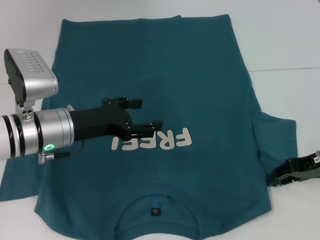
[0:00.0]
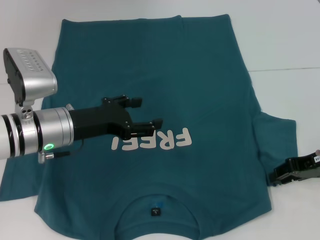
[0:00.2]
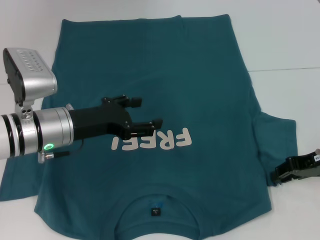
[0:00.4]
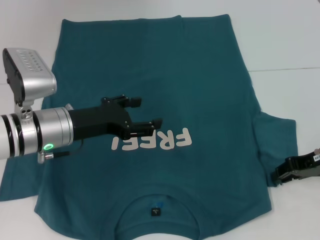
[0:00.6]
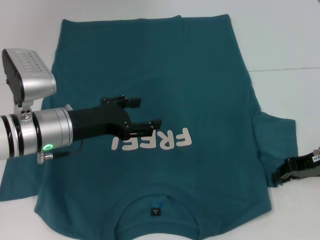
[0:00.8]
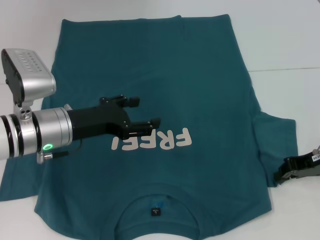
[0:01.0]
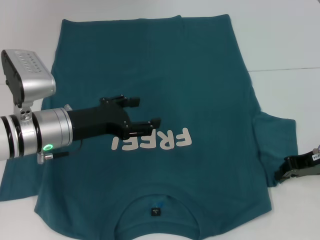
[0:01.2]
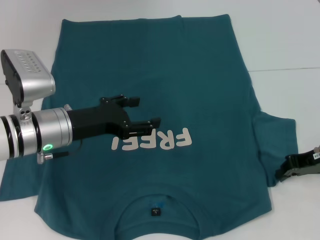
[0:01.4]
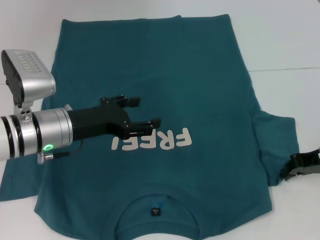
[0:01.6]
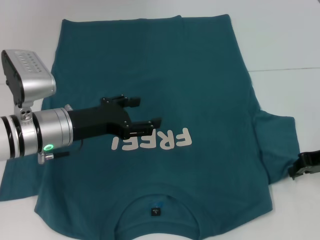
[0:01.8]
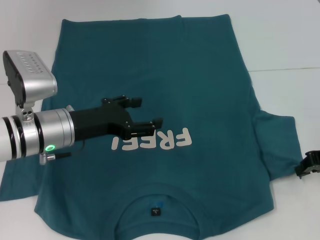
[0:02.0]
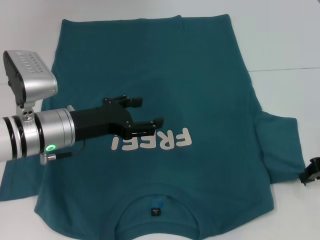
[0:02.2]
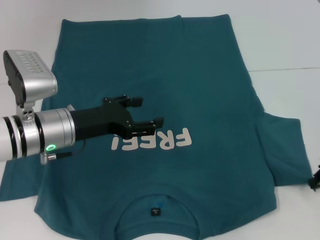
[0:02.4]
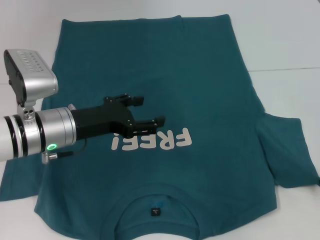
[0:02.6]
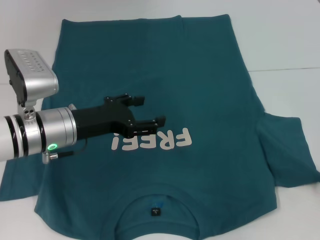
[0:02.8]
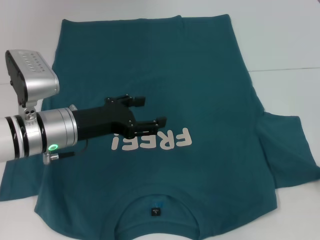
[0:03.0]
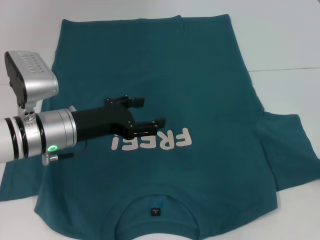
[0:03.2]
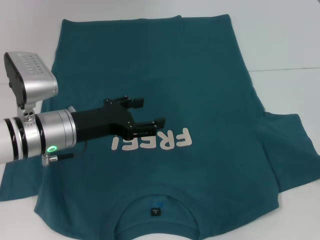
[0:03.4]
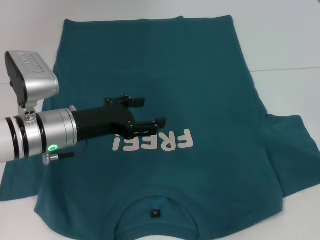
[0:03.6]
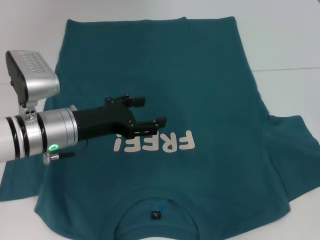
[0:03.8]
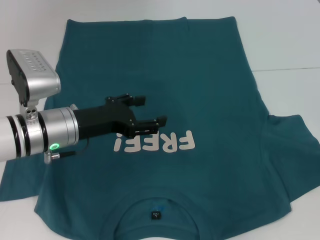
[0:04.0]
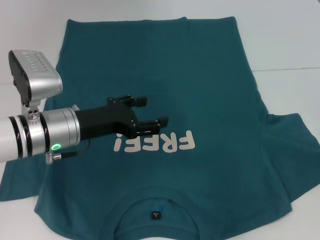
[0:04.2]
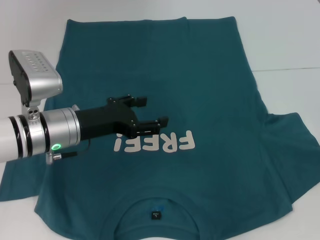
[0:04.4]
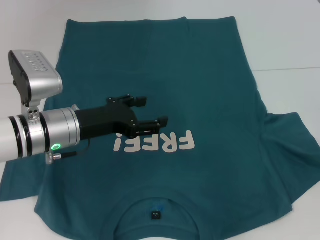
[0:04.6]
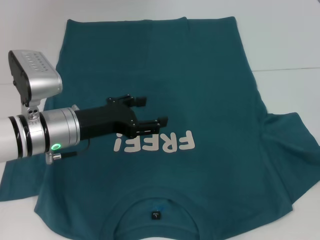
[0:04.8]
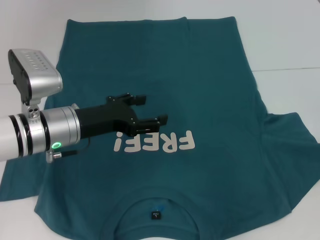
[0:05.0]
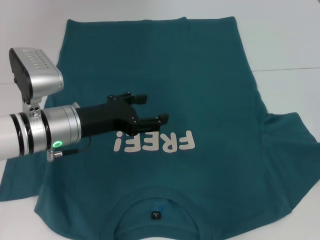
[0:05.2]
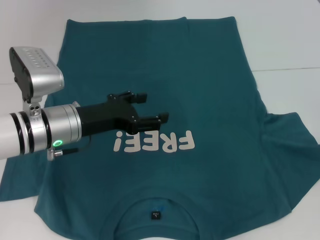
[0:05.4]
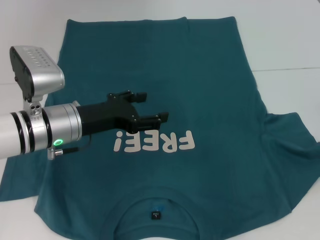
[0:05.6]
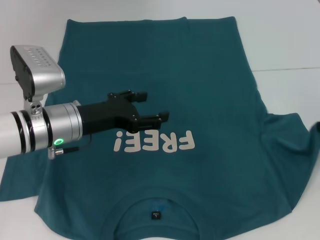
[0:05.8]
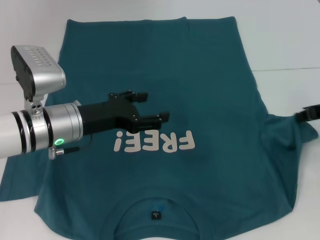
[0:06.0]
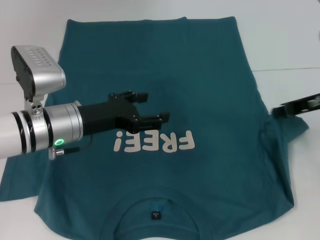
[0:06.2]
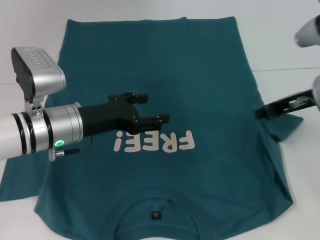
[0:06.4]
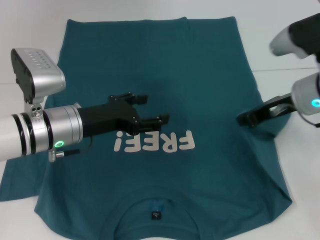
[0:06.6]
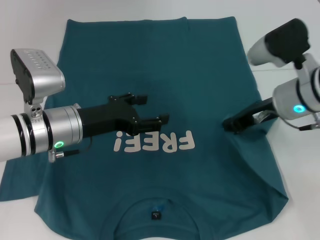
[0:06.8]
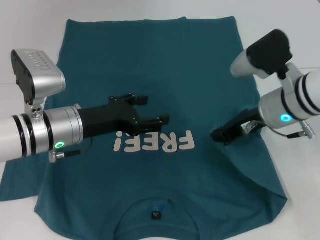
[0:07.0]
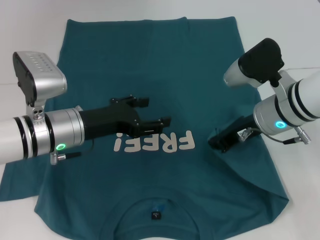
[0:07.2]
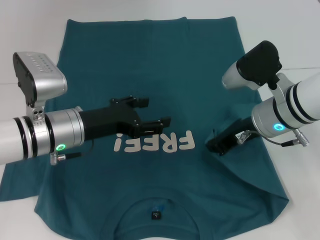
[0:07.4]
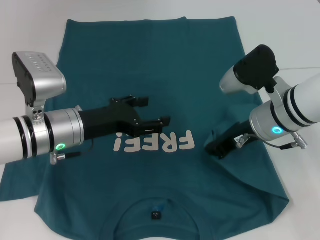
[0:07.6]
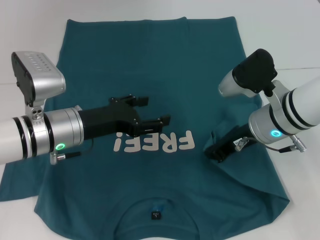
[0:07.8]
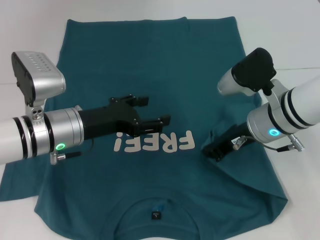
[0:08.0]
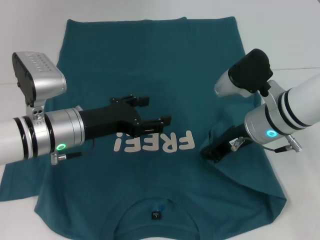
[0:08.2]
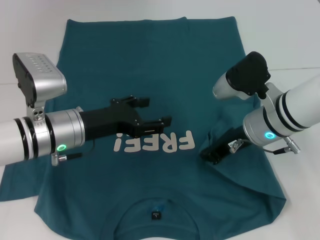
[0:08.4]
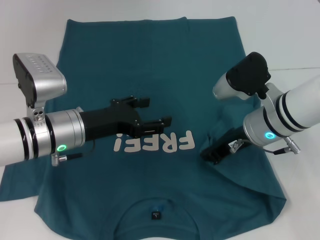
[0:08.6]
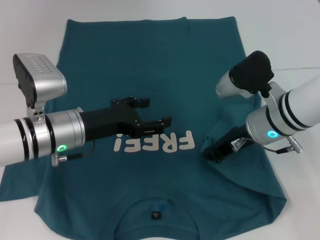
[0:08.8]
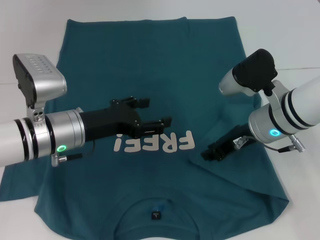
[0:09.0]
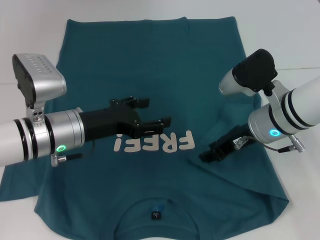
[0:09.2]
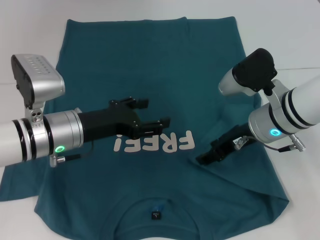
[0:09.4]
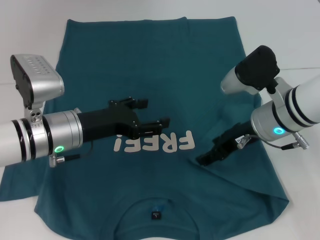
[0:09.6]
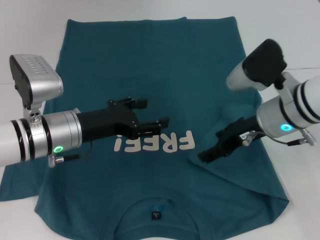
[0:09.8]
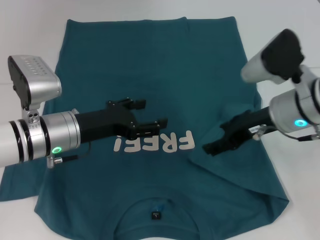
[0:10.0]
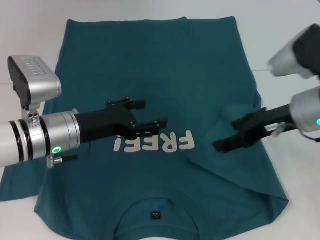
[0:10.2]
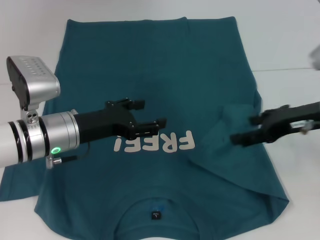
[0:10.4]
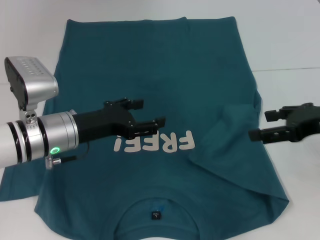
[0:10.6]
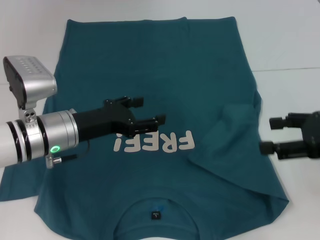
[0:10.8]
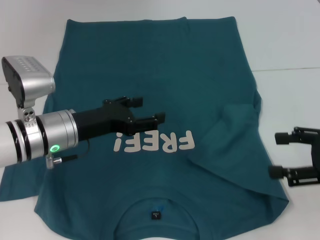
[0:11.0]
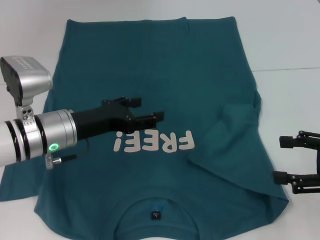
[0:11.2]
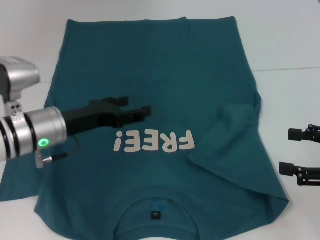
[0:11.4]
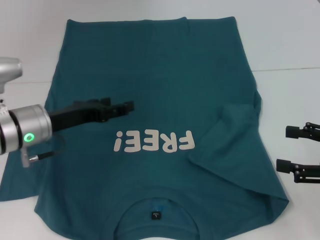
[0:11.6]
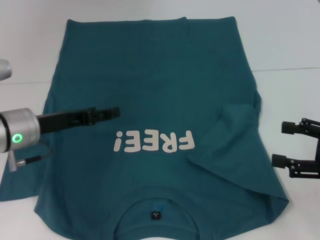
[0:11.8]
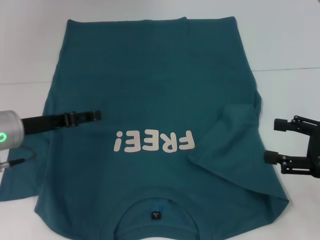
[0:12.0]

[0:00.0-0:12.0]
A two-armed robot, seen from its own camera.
Step, 0:00.0 to 0:09.2: Fold the bottom right sleeve to the right.
0:00.0 to 0:01.6: The right gripper closes its fingers.
0:01.6 to 0:03.0: The right gripper shifts by roughly 5 cm.
0:03.0 to 0:04.4: There are only small adjustments of the grippers.
0:04.4 to 0:06.0: The right gripper heads to the left, covering some 5 cm.
0:06.0 to 0:07.6: The right gripper is displaced to the left by some 15 cm.
0:07.6 to 0:09.0: Both grippers stay about where they are.
0:09.0 to 0:10.4: The right gripper travels to the right and upward by some 10 cm, and opens.
0:10.4 to 0:12.0: The right gripper heads backward and to the right, covering roughly 10 cm. Meanwhile the left gripper shifts about 5 cm to the left.

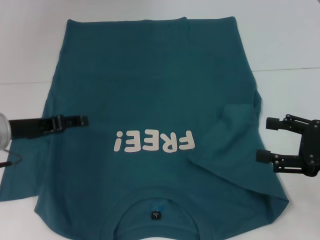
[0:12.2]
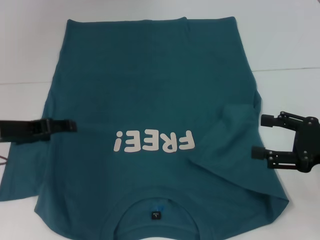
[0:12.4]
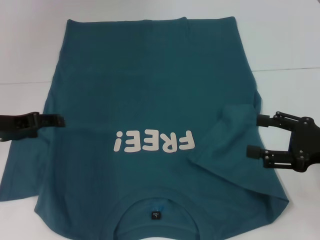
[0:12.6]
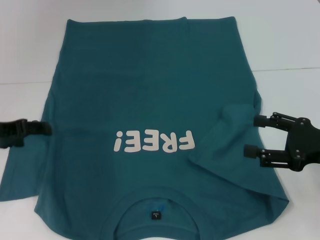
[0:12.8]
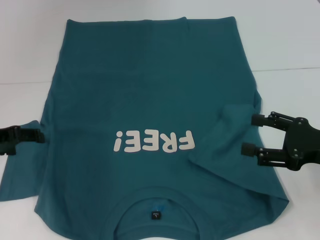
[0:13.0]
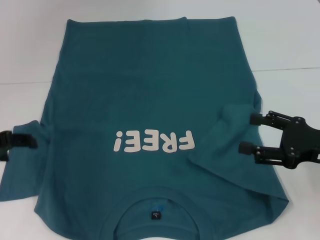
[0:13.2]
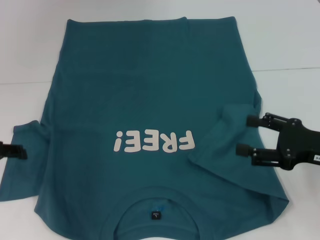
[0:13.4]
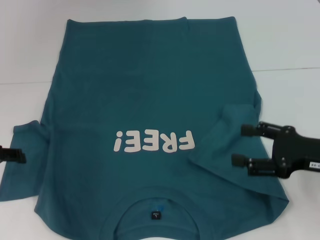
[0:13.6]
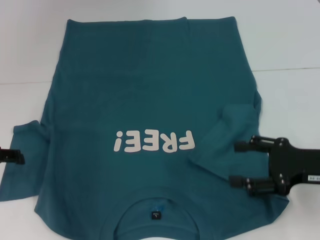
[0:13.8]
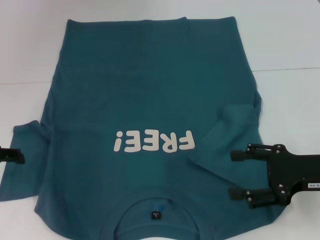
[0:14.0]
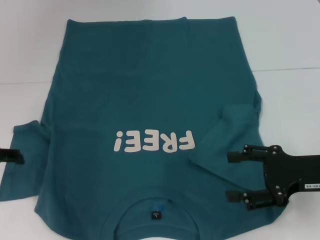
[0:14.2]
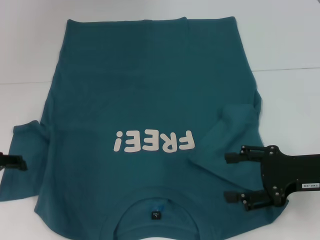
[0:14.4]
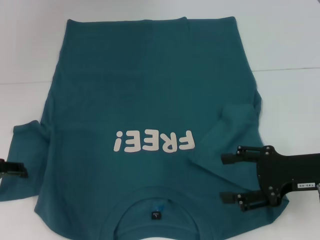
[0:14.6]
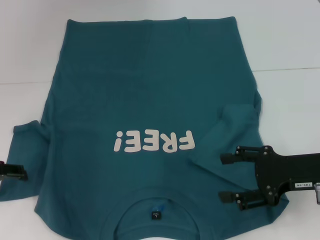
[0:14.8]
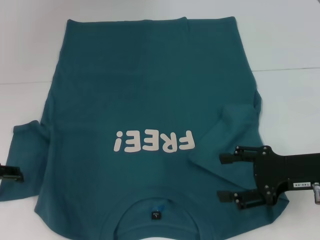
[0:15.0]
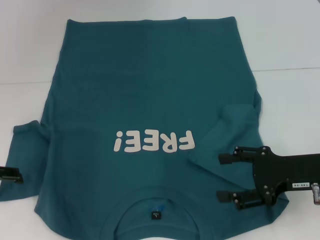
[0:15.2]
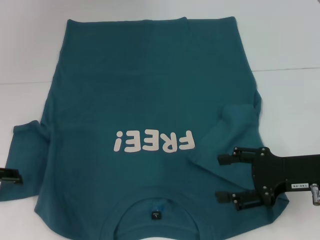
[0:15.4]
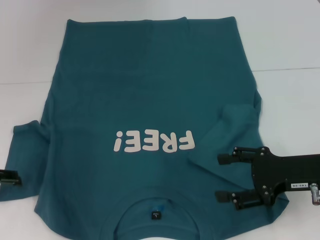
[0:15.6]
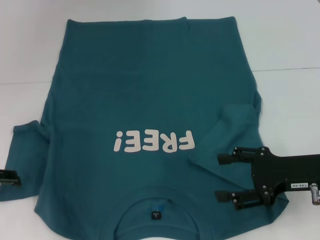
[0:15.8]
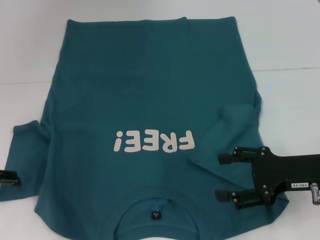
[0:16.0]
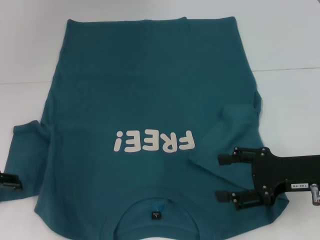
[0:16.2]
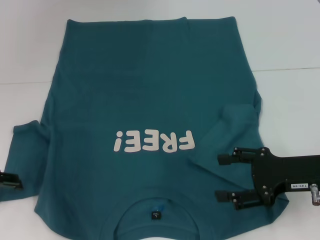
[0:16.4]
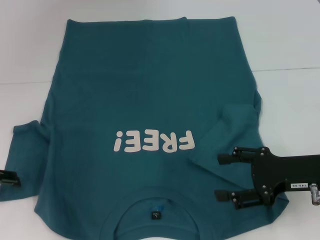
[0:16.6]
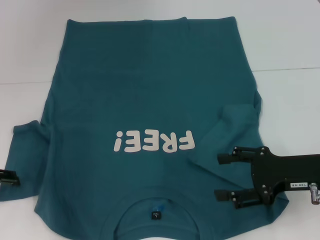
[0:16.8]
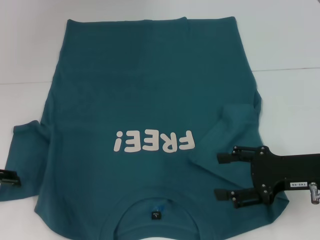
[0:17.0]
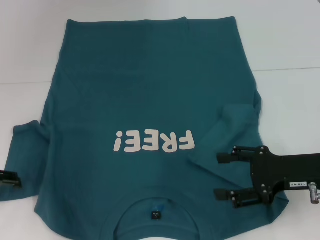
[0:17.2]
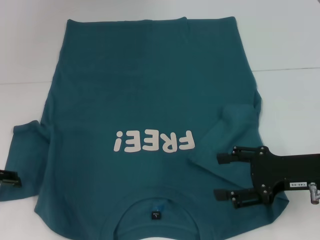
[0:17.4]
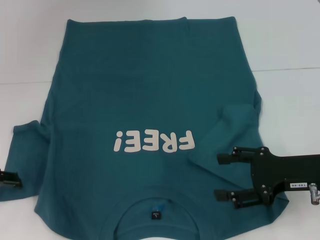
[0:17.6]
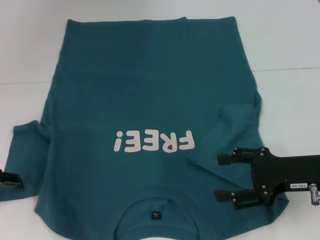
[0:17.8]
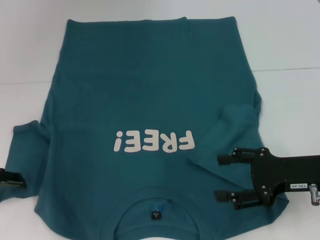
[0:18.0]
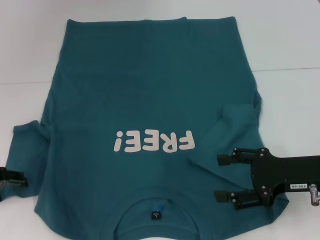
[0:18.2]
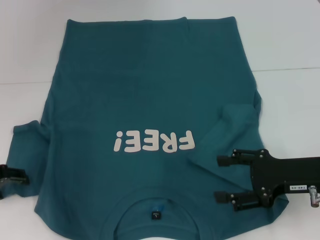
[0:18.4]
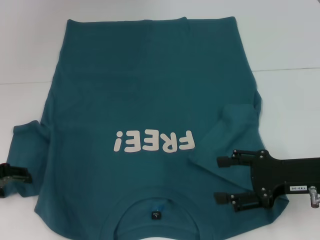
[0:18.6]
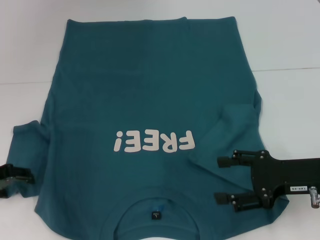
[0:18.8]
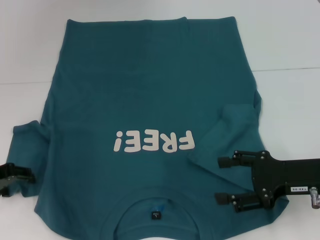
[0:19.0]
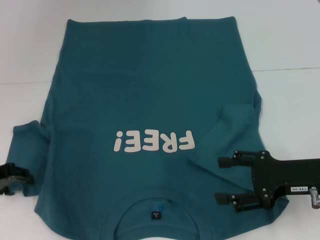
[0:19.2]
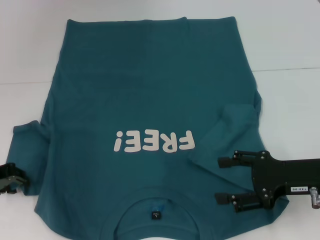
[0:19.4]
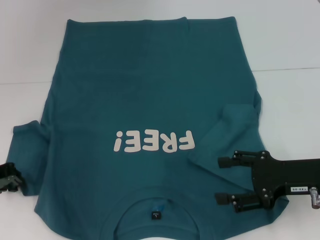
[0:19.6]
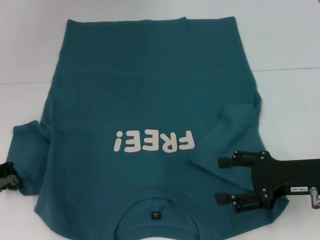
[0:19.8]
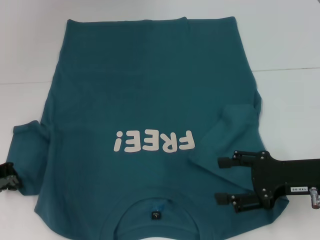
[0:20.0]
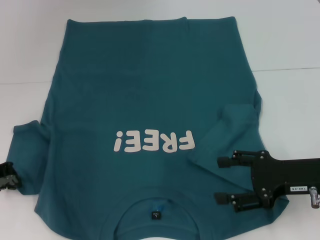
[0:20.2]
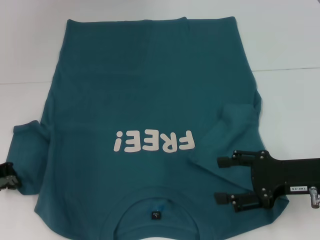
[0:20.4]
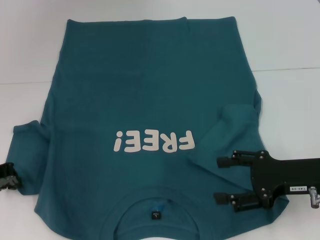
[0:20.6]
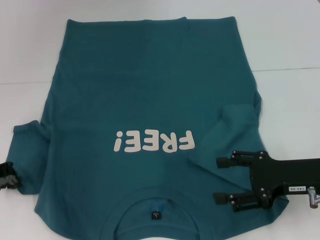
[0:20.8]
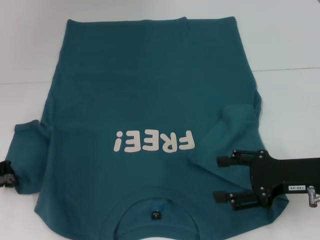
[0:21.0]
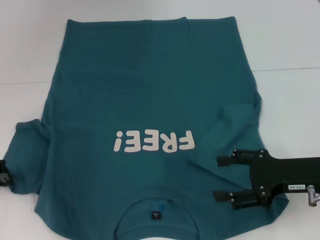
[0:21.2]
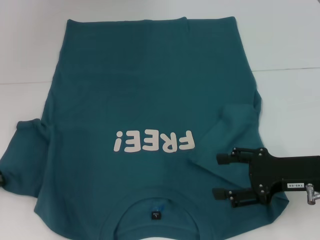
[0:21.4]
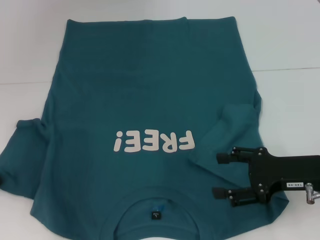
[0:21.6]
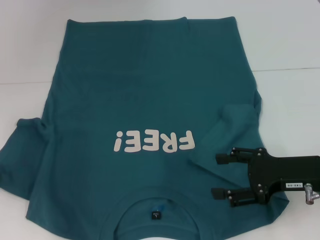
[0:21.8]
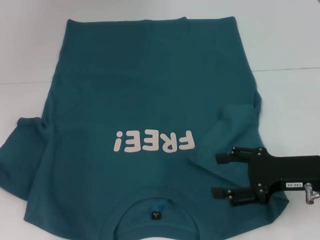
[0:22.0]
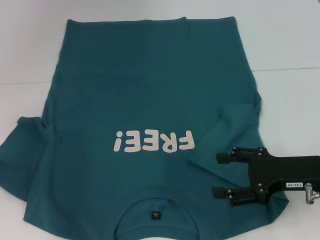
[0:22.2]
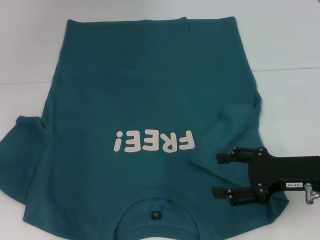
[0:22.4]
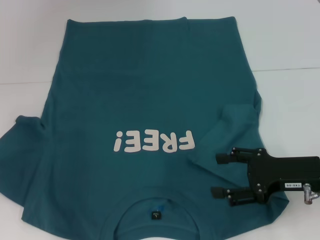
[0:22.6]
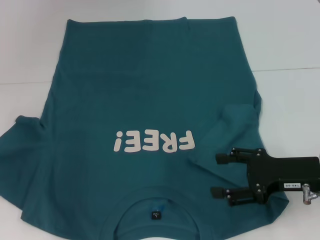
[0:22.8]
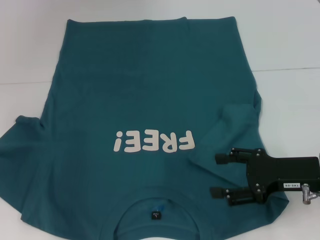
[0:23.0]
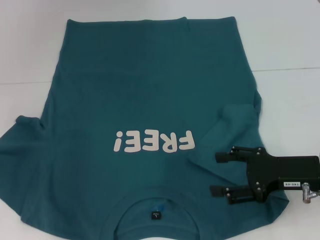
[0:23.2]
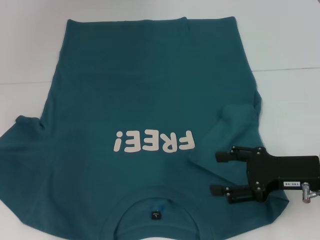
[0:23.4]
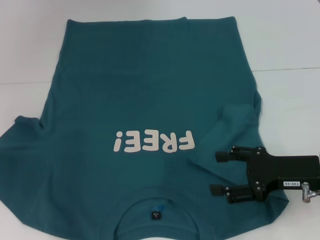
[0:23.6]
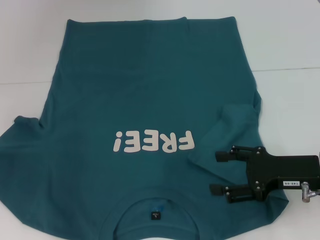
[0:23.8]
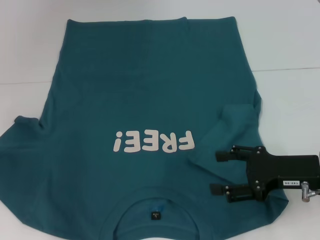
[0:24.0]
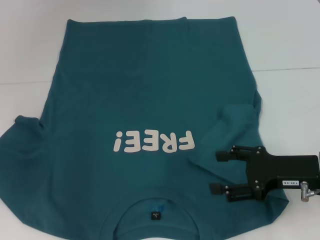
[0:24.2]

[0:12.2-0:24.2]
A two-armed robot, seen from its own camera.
0:12.2 to 0:13.8: The left gripper travels to the left by about 5 cm.
0:13.8 to 0:15.2: The grippers stay close to where they were, moving slightly.
0:15.2 to 0:16.6: Both grippers stay put.
0:16.6 to 0:18.2: Neither gripper changes place.
0:18.2 to 0:19.8: The left gripper closes up.
0:19.8 to 0:21.2: Both grippers stay put.
0:21.2 to 0:24.2: There are only small adjustments of the grippers.
